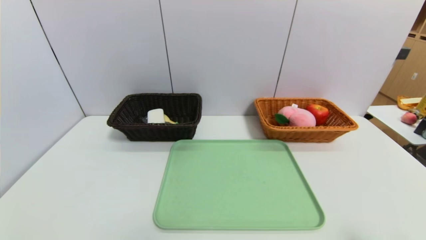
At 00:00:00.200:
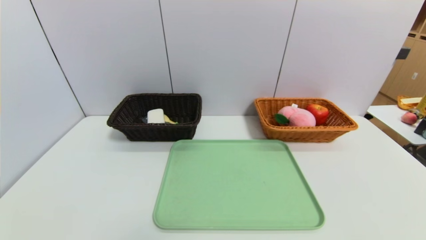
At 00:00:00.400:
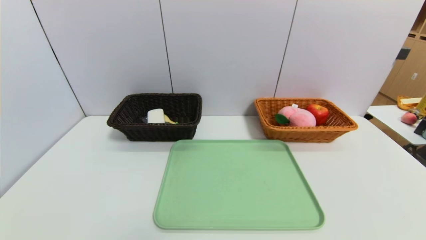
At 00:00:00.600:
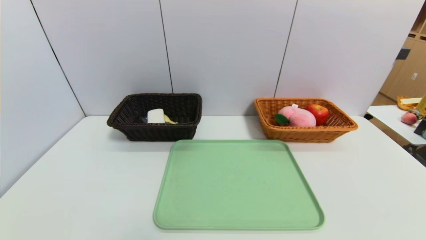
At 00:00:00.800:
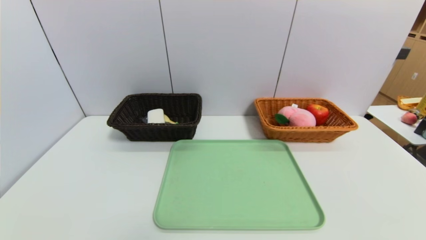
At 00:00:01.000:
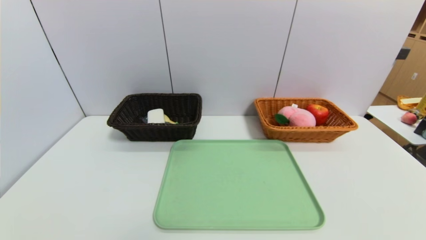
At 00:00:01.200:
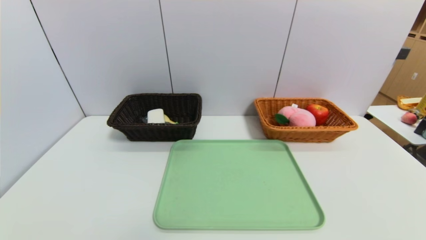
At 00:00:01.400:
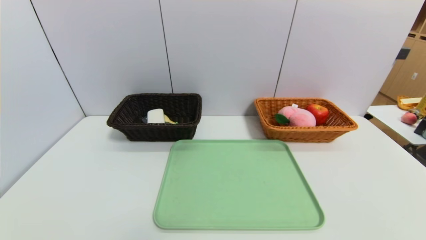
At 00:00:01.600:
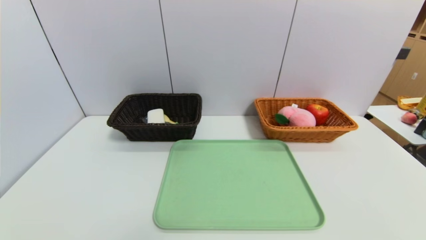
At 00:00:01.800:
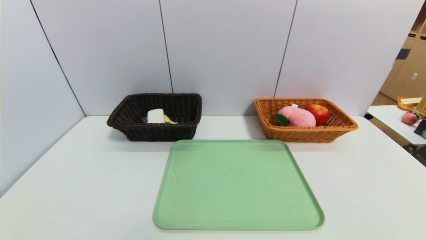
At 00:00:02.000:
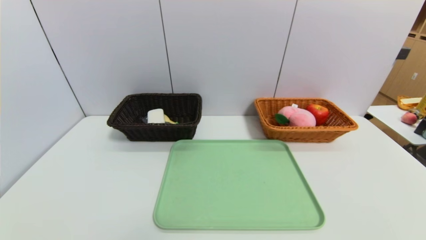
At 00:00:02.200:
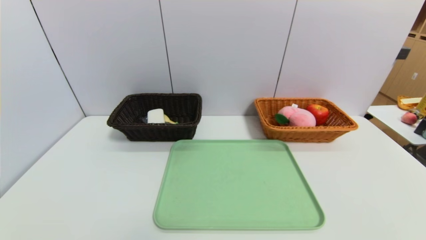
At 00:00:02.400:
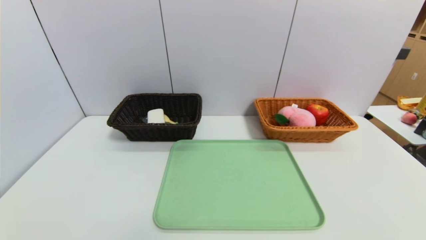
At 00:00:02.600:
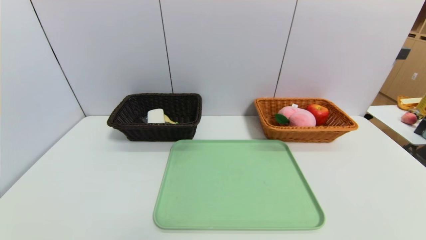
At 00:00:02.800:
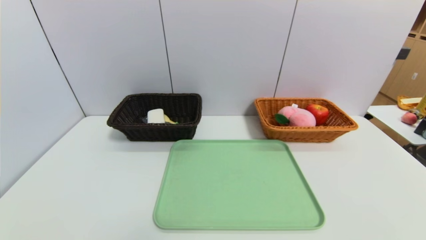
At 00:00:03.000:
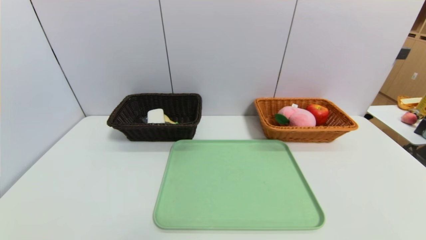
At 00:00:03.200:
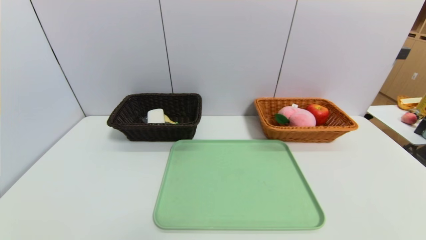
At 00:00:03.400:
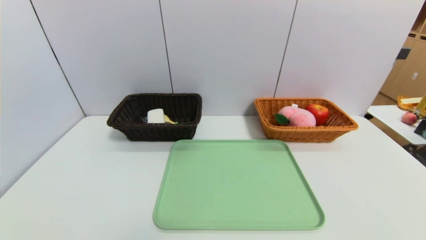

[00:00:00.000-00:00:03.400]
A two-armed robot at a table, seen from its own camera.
Task of the whole recording: place the food in the right basket with the right gripper, and place the non food items in the left basket with the left gripper.
00:00:01.600 to 00:00:03.400: The two grippers keep their place.
